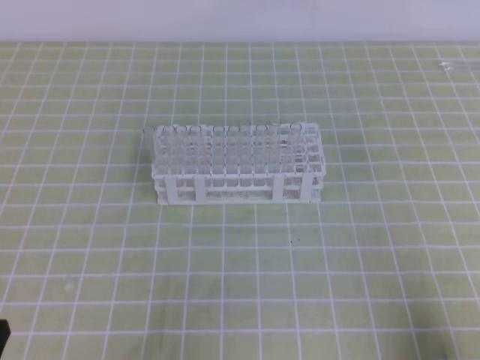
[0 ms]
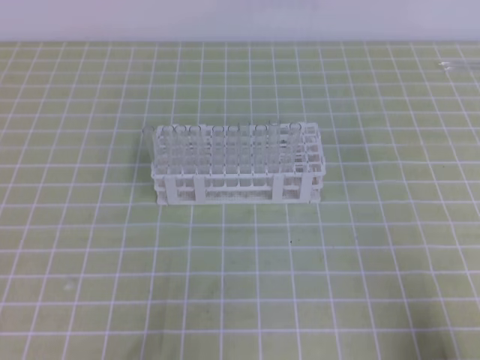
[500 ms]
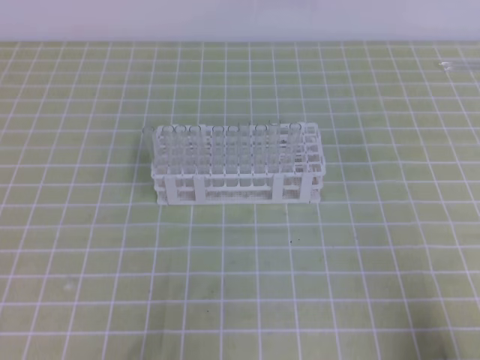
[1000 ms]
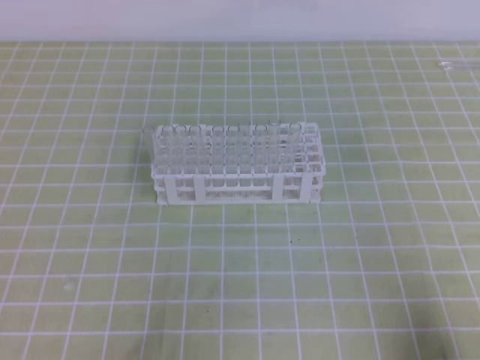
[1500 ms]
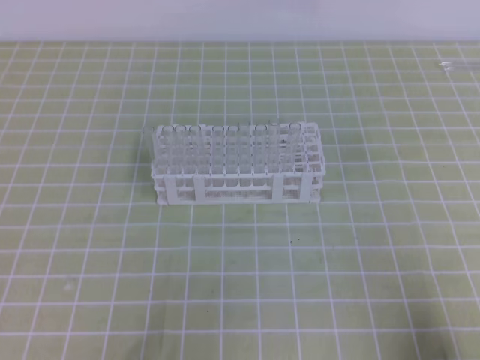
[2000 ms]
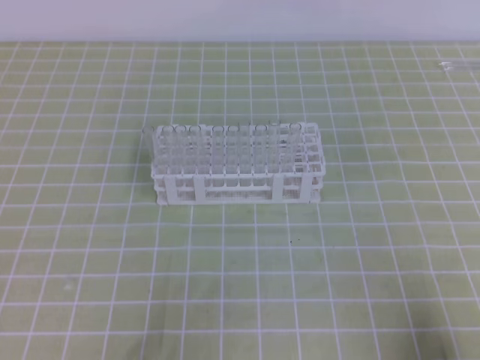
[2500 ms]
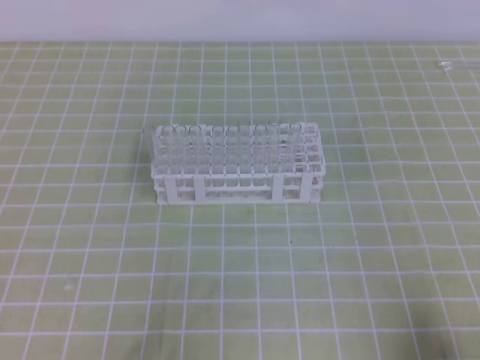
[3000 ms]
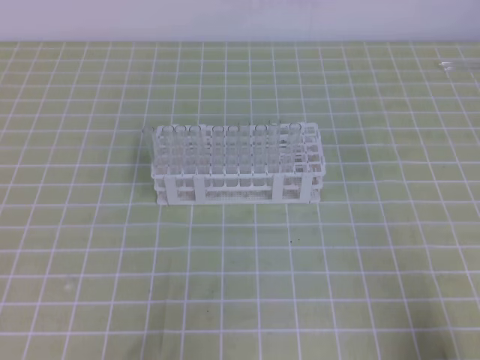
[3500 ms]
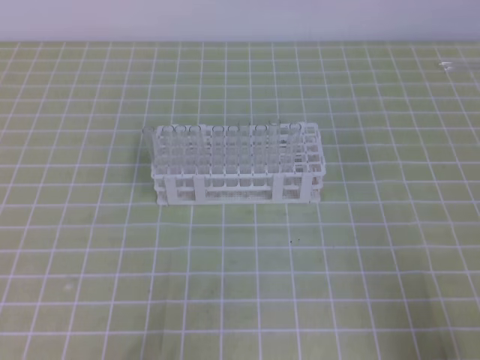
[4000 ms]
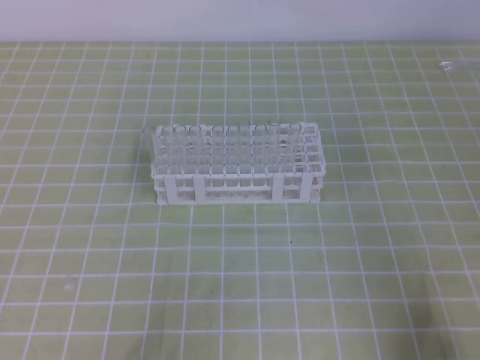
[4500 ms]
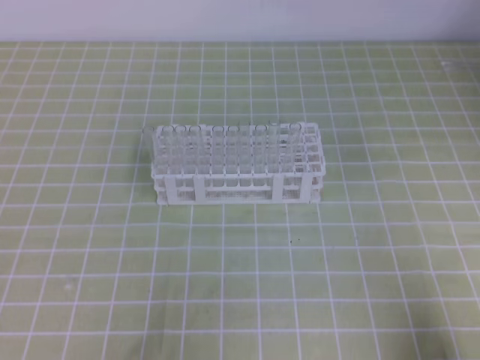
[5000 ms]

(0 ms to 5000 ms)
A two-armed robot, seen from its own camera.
0 ms - 5000 ms: Both grippers stay about where they are.

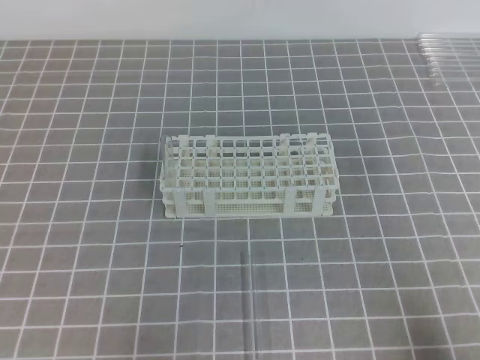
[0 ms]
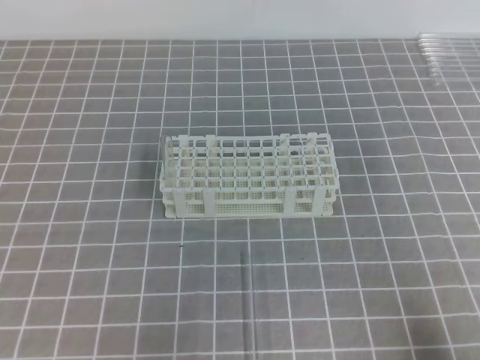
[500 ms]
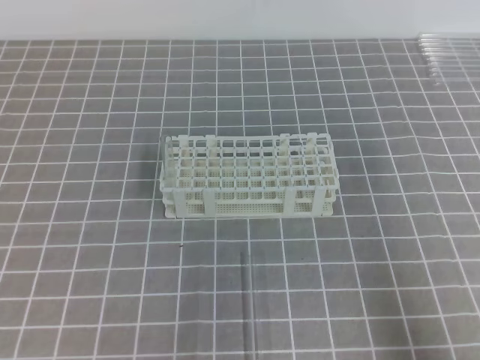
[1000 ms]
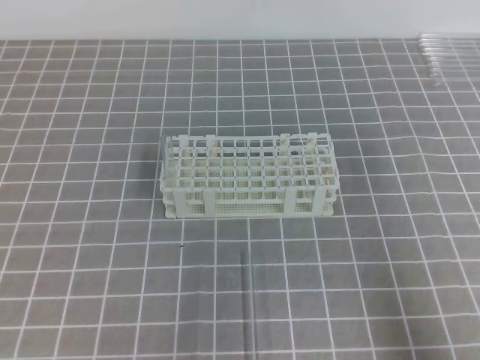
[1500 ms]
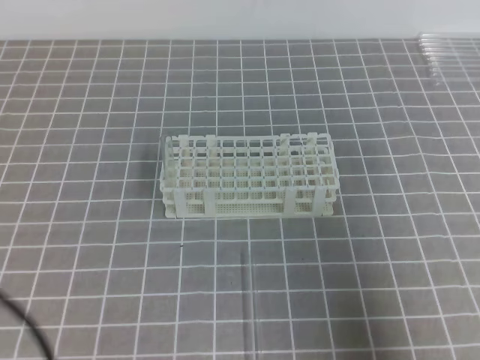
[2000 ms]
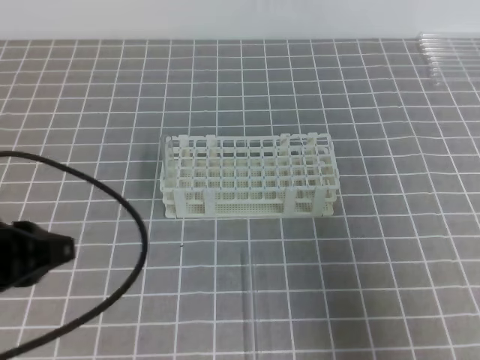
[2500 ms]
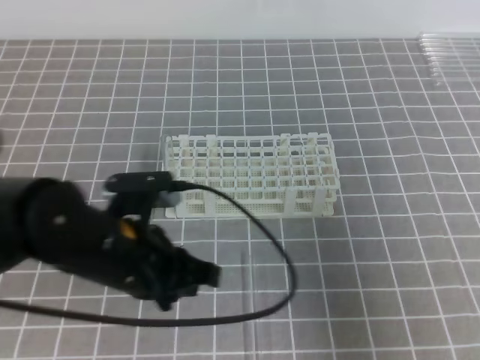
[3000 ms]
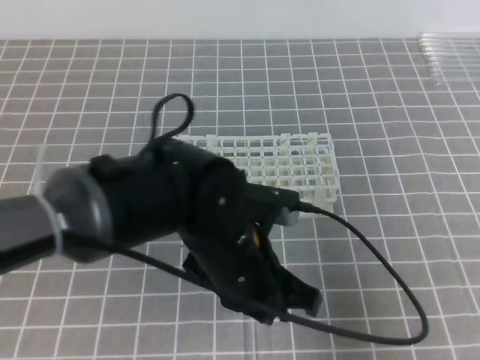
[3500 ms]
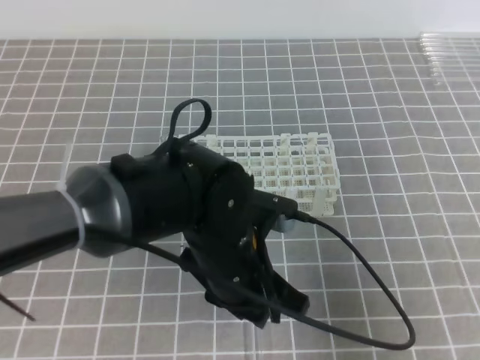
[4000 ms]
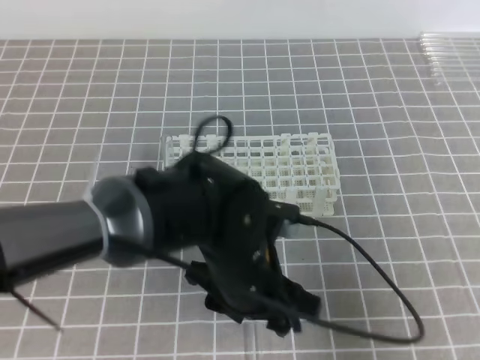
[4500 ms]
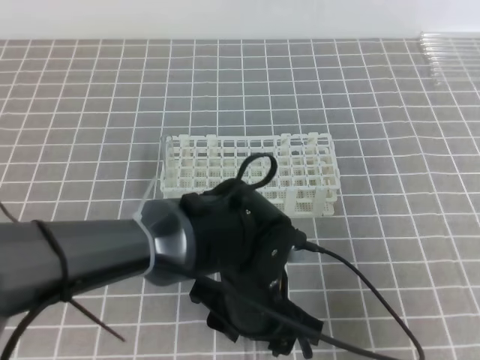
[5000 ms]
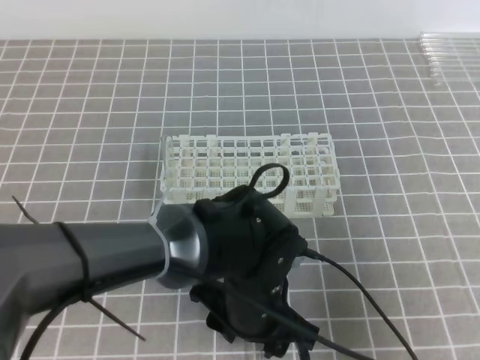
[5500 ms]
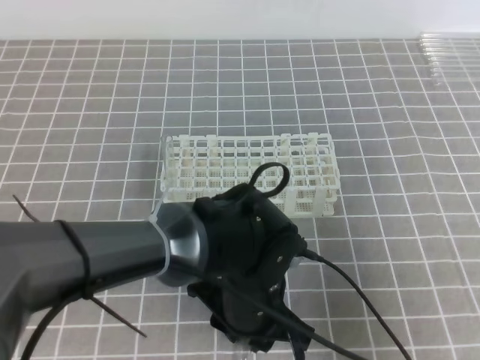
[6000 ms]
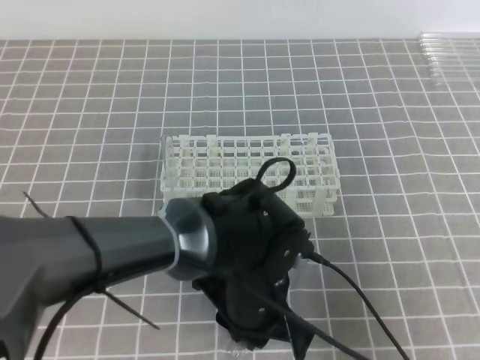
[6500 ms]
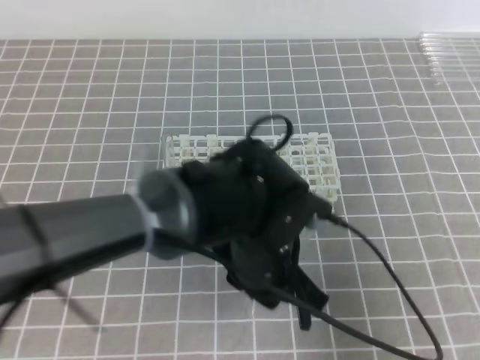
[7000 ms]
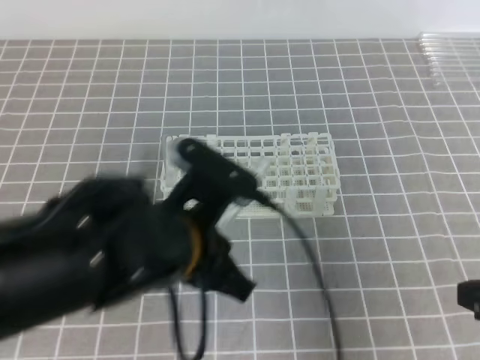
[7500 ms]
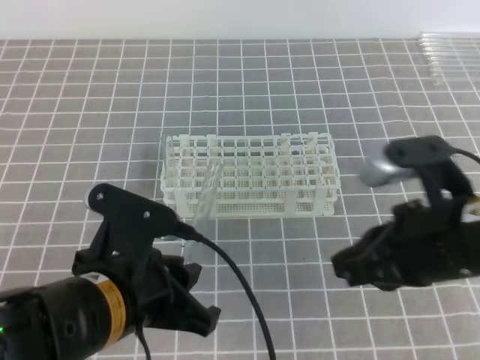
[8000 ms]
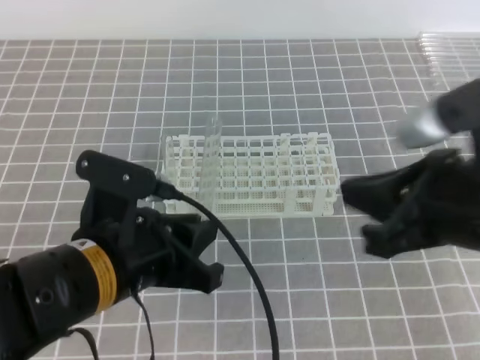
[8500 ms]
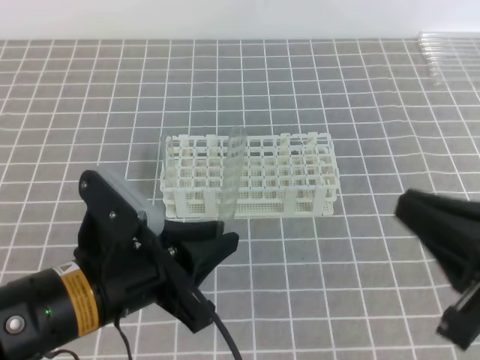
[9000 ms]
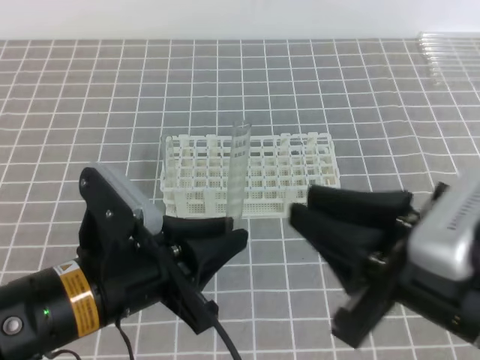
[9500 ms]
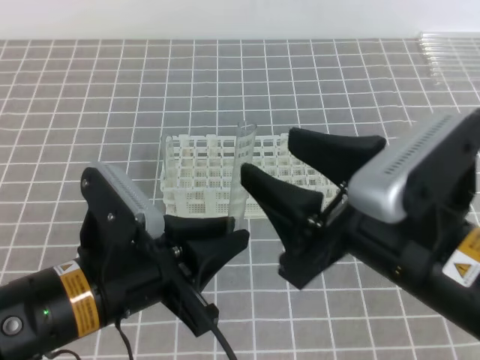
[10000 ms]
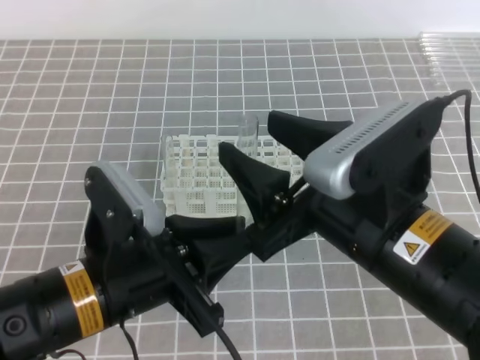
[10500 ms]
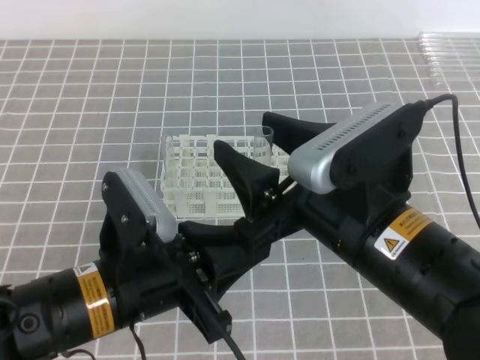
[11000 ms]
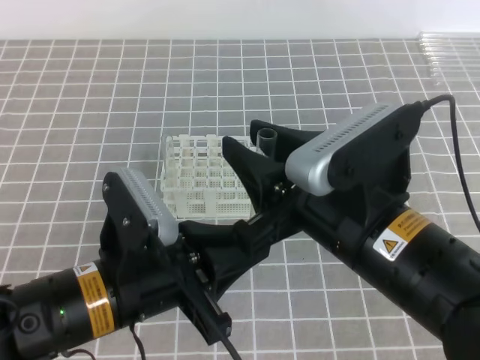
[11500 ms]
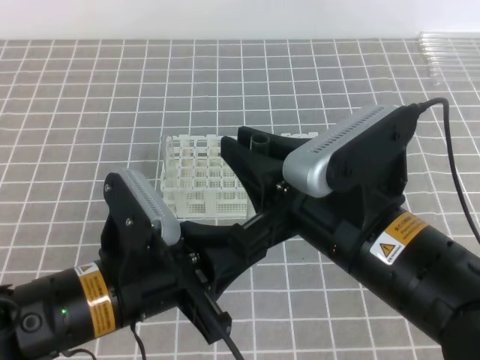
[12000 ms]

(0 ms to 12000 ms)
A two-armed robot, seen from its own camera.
0 ms - 2000 ms: Both grippers move upward, some 10 cm.
2000 ms - 4000 ms: The left gripper is displaced to the right and forward by roughly 30 cm, and opens.
4000 ms - 6000 ms: The left gripper is displaced downward by approximately 5 cm, and opens and closes again.
6000 ms - 8000 ms: The right gripper heads to the left and forward, covering approximately 10 cm. Meanwhile the left gripper travels to the left, upward and backward by about 15 cm, and closes.
8000 ms - 10000 ms: The right gripper is displaced to the left by roughly 5 cm, and opens its fingers.
10000 ms - 12000 ms: The right gripper closes its fingers.

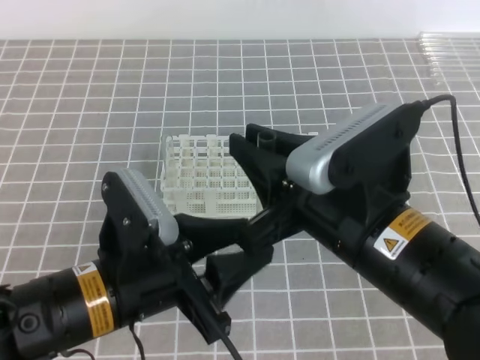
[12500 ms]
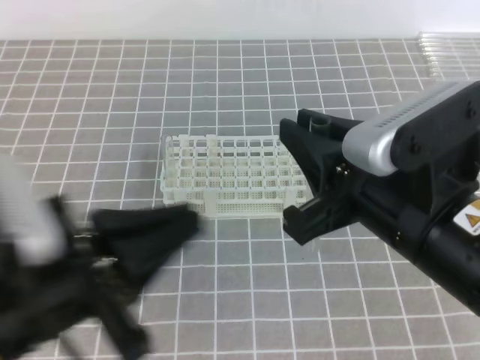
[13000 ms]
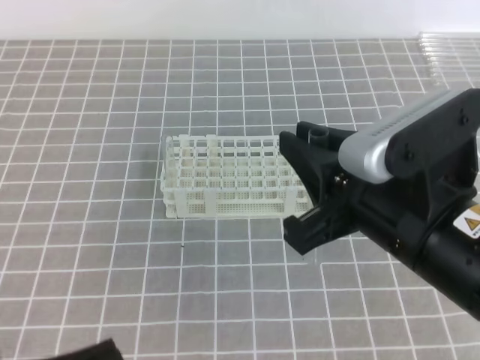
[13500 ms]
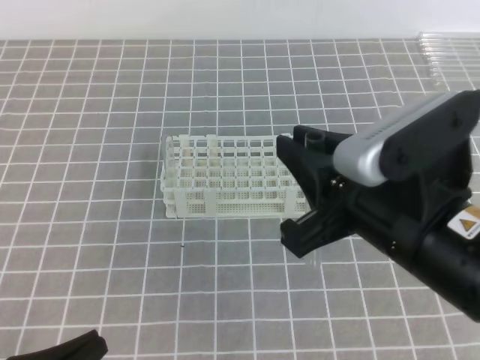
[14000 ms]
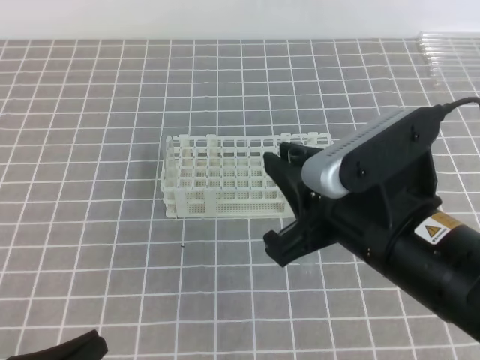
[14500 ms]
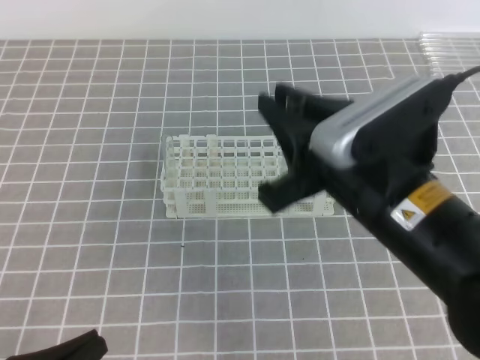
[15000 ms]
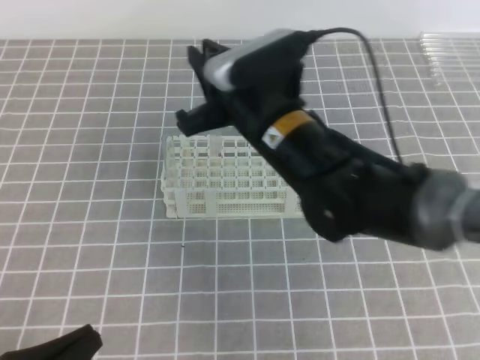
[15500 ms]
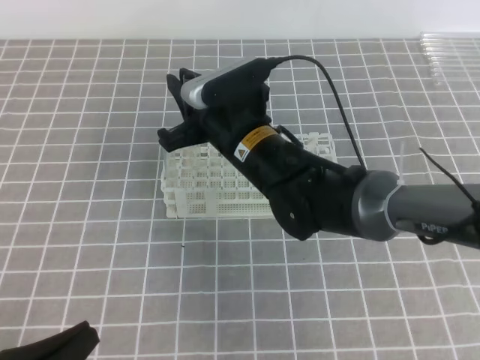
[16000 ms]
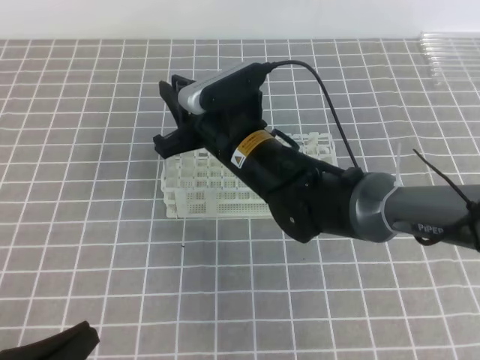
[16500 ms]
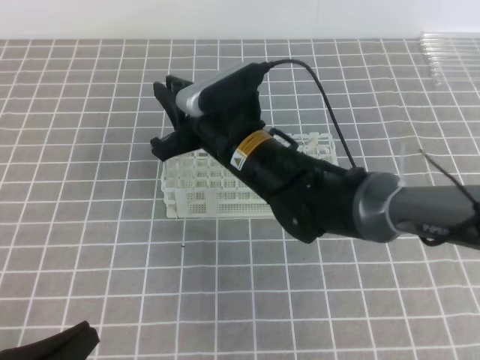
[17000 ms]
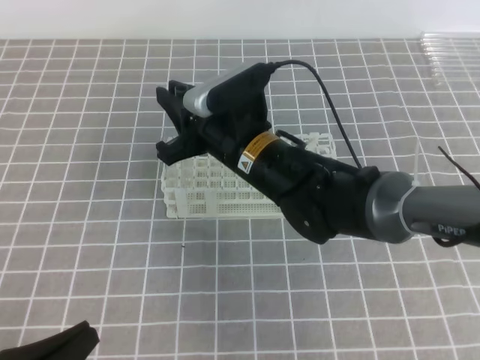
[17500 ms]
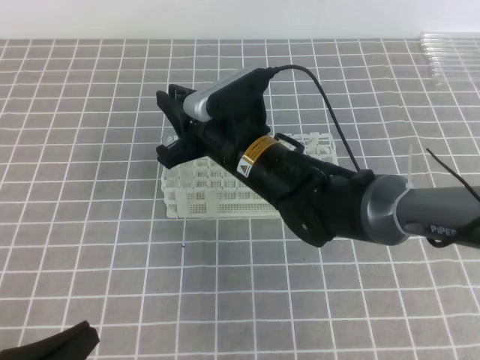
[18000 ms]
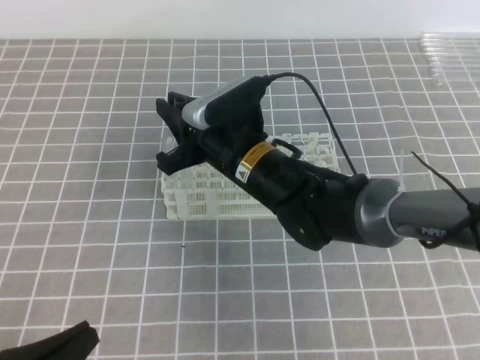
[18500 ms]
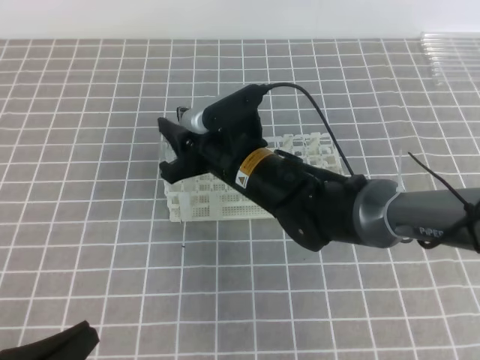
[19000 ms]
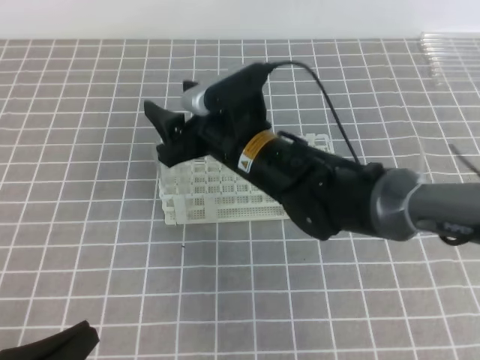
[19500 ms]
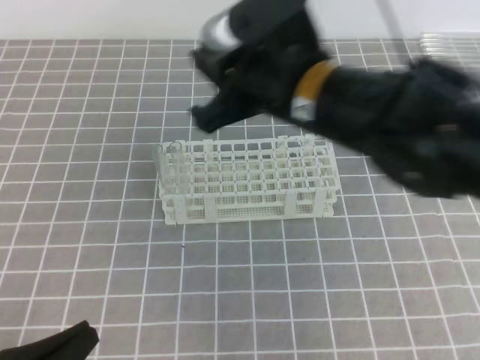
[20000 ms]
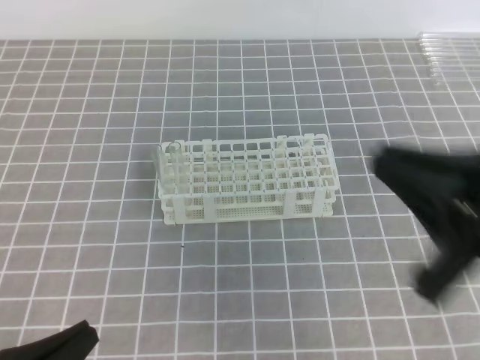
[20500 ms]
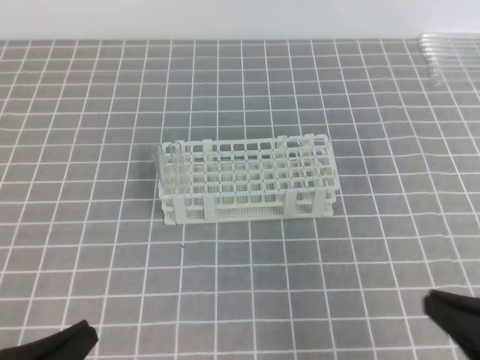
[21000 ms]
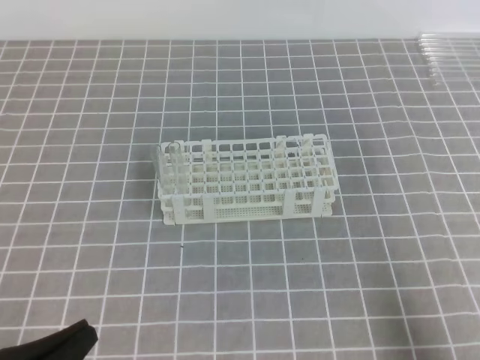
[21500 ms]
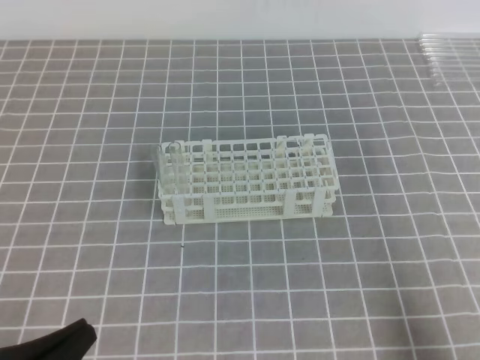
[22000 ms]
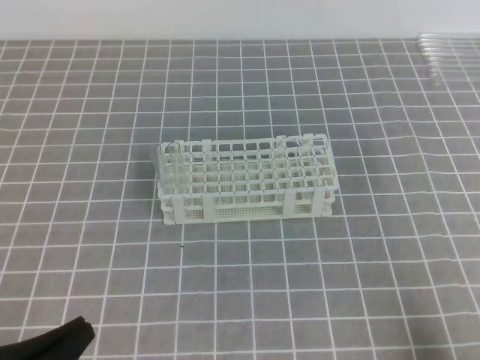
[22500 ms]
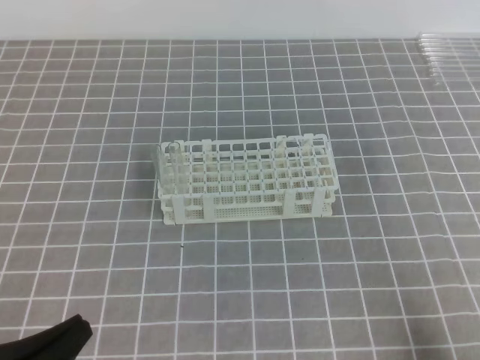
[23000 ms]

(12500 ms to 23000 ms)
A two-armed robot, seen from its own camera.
12500 ms - 14500 ms: The left gripper moves to the left and backward, about 15 cm, and closes its fingers.
14500 ms - 16500 ms: The right gripper moves forward, to the left and downward, roughly 20 cm.
16500 ms - 19000 ms: The right gripper opens up.
19000 ms - 21000 ms: The right gripper goes some 35 cm to the right and backward, and closes its fingers.
21000 ms - 23000 ms: The right gripper goes roughly 10 cm downward and to the right.
